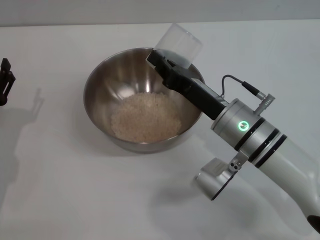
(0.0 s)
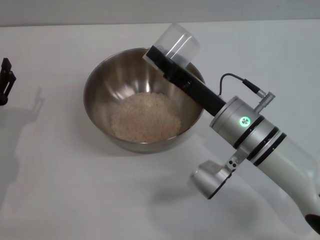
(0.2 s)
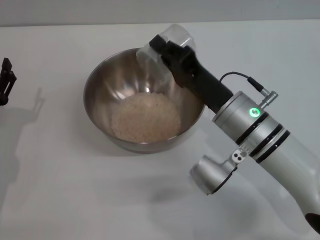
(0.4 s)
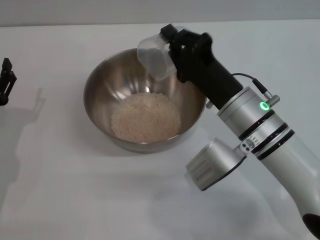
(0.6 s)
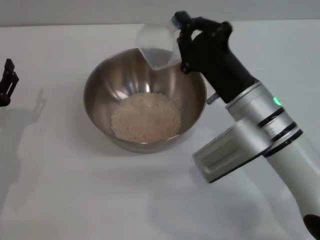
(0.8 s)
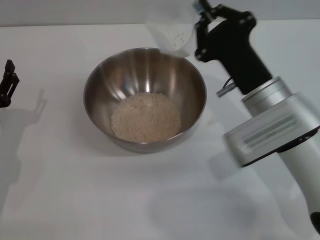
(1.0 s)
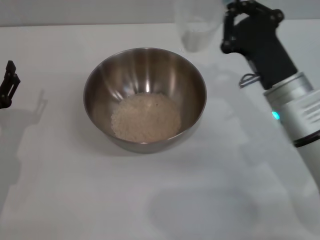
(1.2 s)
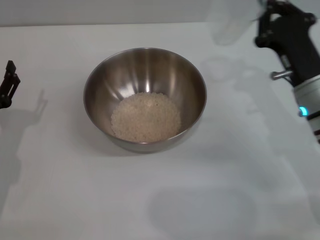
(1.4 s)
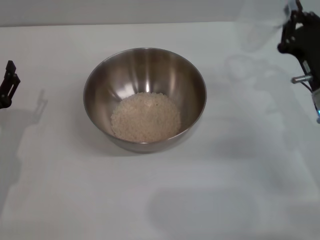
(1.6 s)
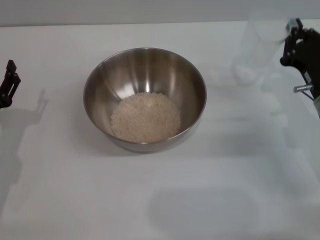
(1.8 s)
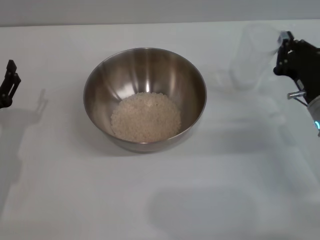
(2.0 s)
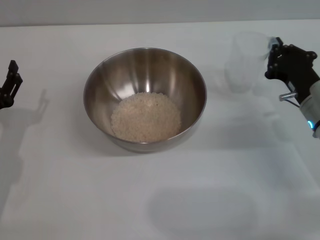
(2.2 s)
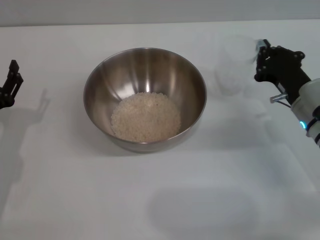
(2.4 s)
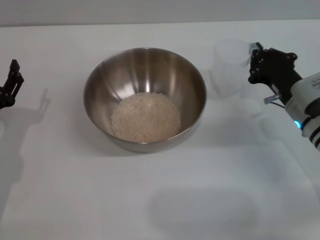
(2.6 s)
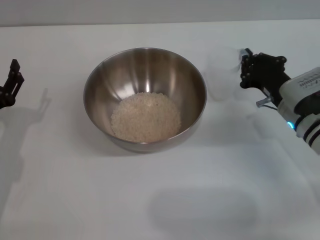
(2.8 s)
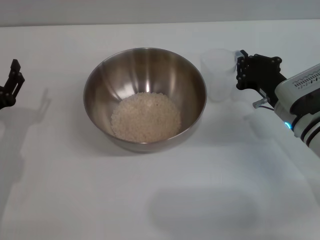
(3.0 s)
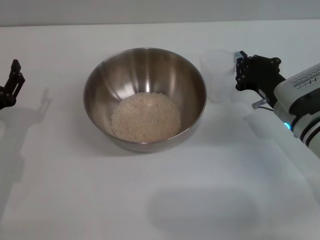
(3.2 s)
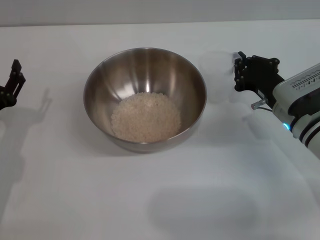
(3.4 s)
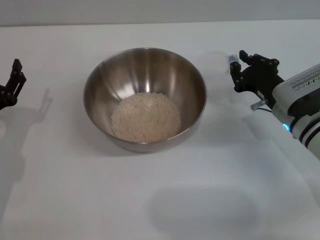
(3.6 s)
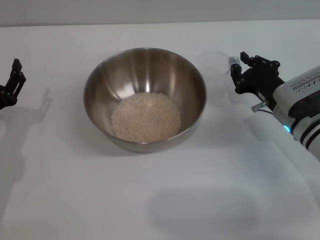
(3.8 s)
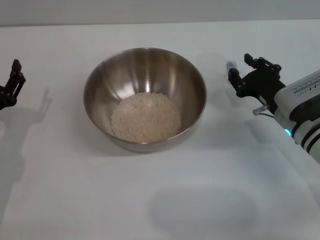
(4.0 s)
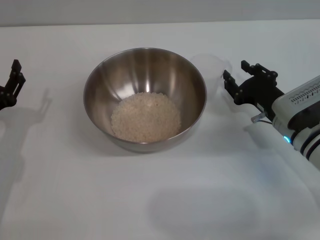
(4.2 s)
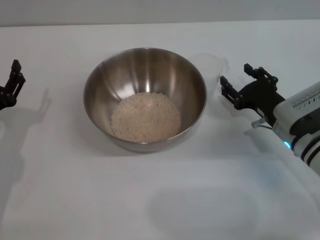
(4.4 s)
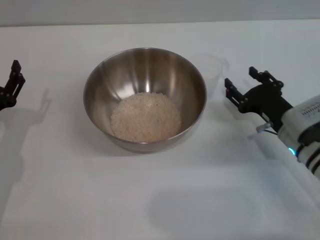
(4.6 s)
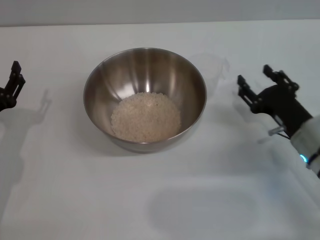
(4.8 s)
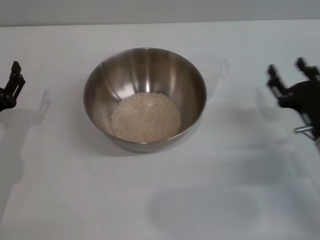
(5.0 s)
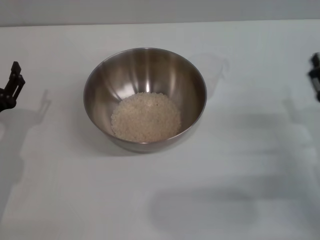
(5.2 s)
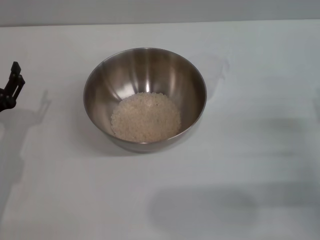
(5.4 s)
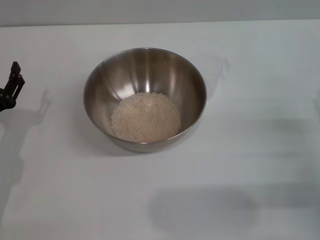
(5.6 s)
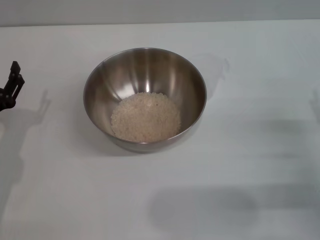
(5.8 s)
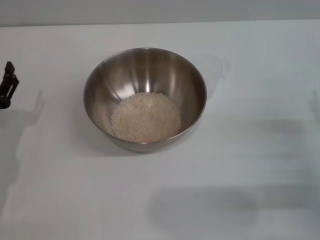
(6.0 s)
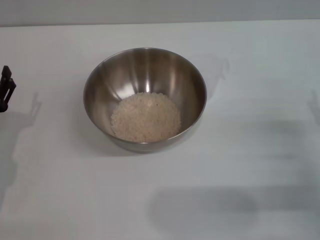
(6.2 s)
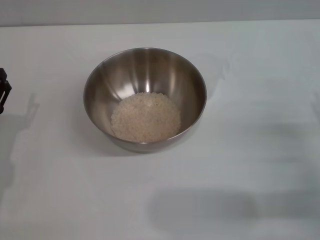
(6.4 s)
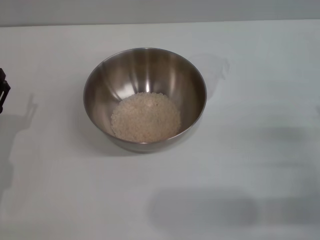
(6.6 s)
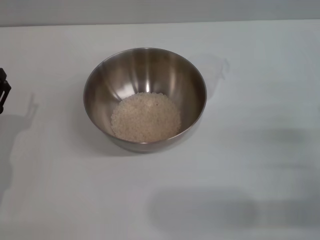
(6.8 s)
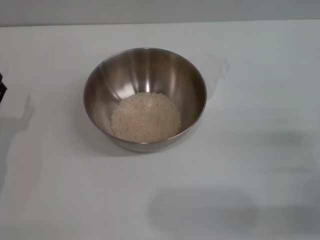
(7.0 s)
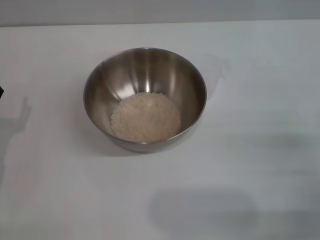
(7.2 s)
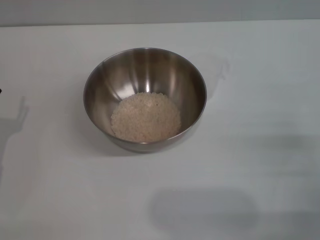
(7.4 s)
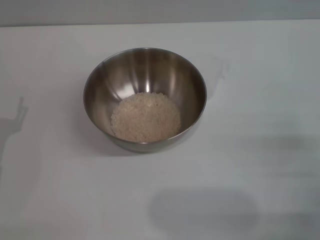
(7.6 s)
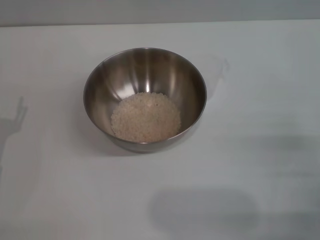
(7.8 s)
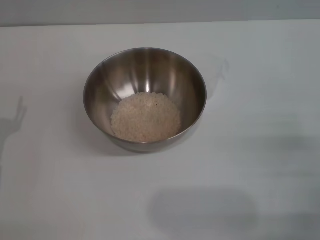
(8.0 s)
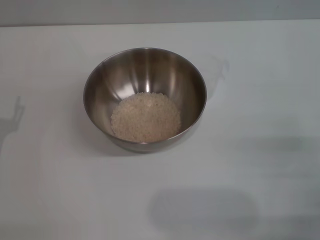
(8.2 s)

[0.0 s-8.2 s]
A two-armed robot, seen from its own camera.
Task of the whole recording: Place the bowl in the middle of the table with one hand and pour the rice from the grain cup into it with the other hand.
Step, 0.4 to 4.6 s: Place the cup on the table with the right gripper.
0.0 to 1.6 s: The right gripper shifts roughly 15 cm to the right.
1.6 to 3.2 s: The right gripper moves some 5 cm.
3.2 to 5.0 s: The right gripper shifts roughly 5 cm backward, and opens up.
5.0 to 6.6 s: The right gripper travels backward and to the right by some 10 cm.
6.6 to 8.2 s: The grippers make only small movements.

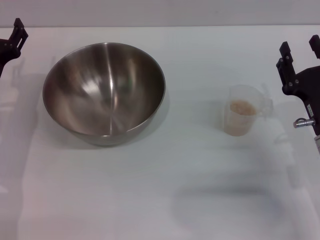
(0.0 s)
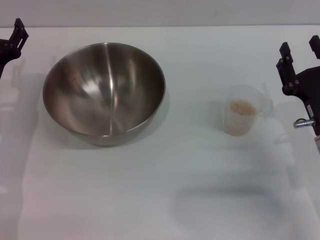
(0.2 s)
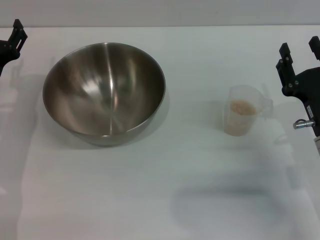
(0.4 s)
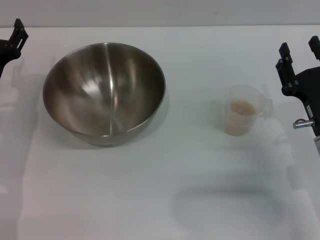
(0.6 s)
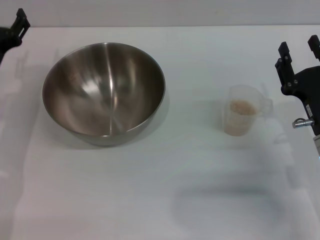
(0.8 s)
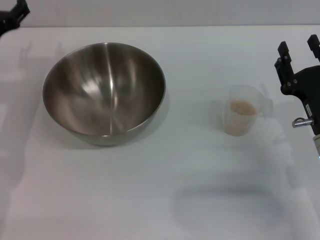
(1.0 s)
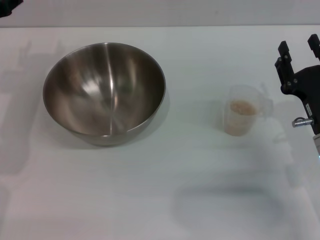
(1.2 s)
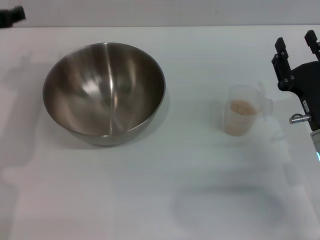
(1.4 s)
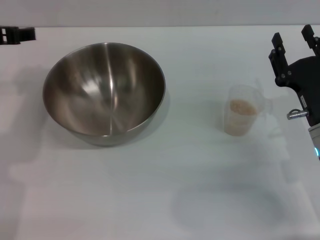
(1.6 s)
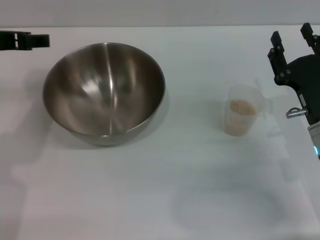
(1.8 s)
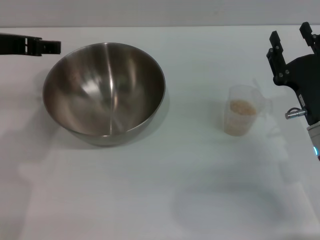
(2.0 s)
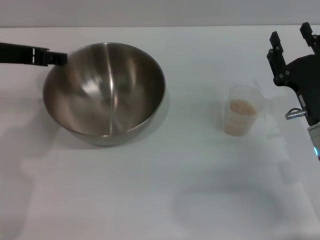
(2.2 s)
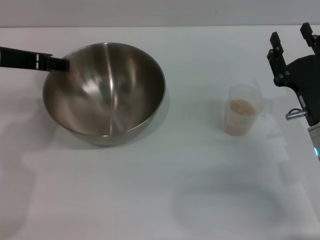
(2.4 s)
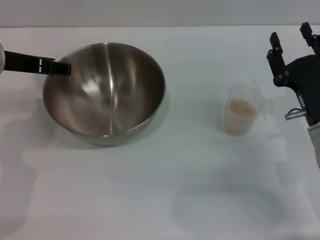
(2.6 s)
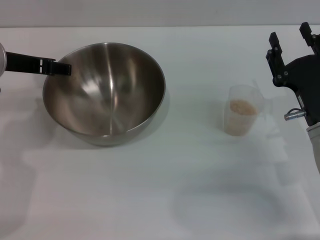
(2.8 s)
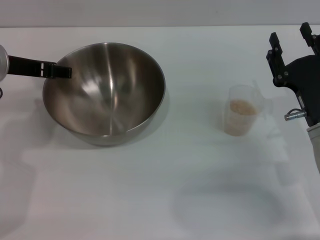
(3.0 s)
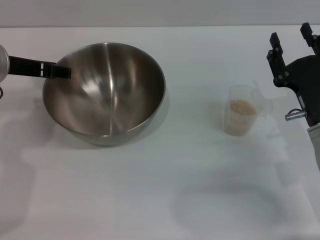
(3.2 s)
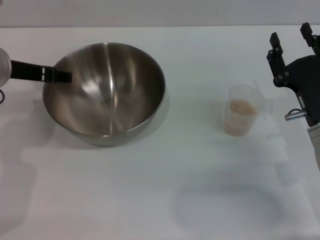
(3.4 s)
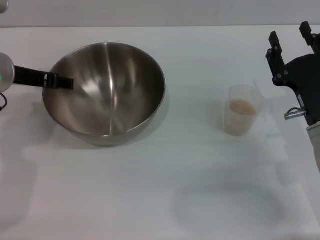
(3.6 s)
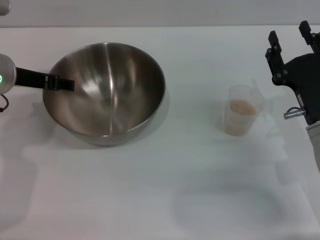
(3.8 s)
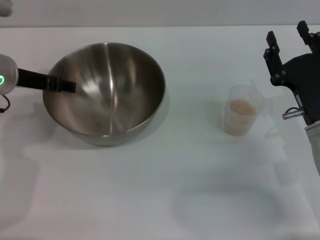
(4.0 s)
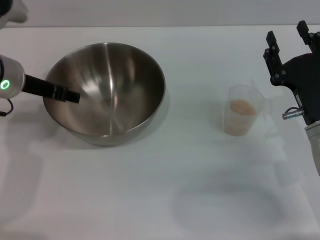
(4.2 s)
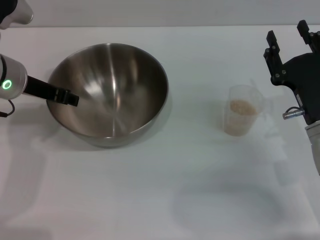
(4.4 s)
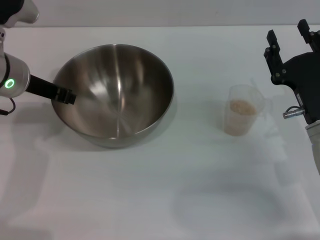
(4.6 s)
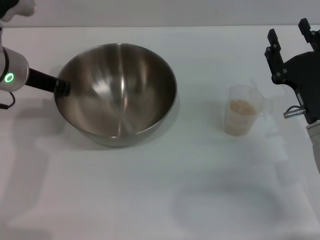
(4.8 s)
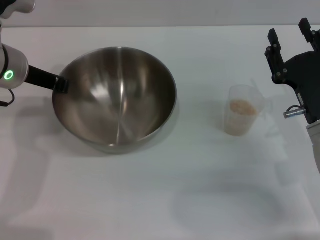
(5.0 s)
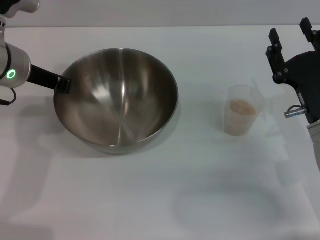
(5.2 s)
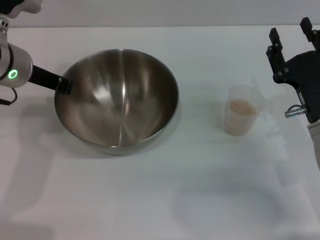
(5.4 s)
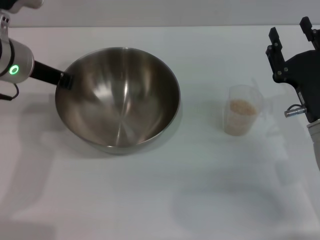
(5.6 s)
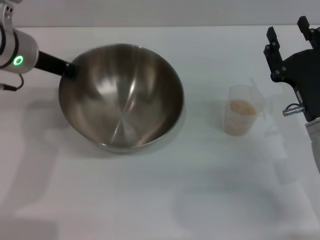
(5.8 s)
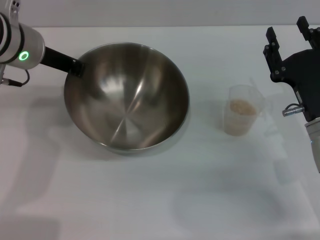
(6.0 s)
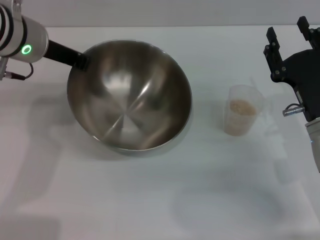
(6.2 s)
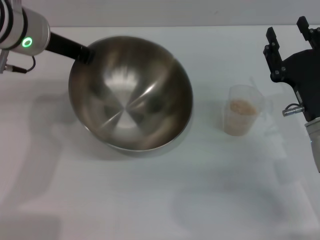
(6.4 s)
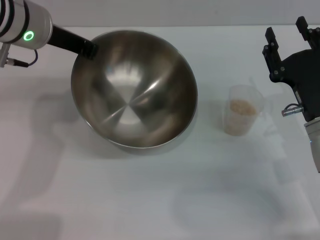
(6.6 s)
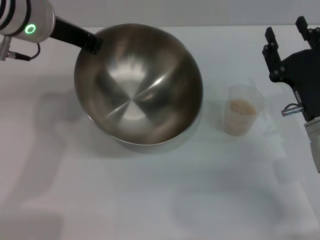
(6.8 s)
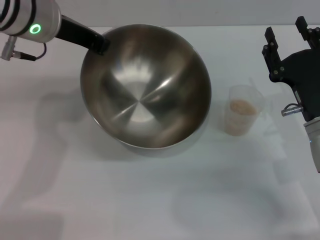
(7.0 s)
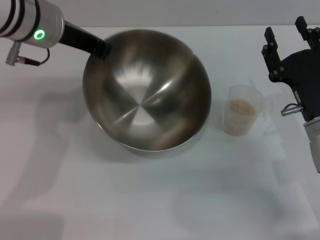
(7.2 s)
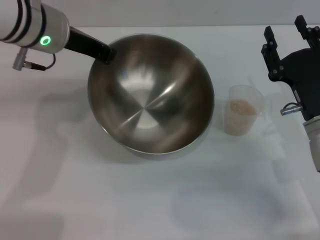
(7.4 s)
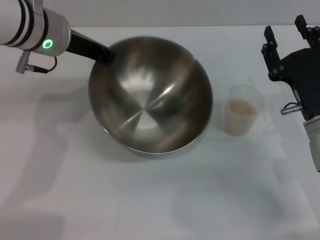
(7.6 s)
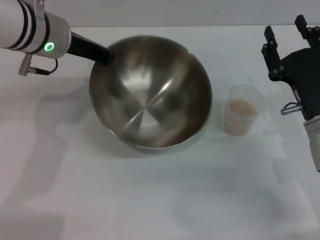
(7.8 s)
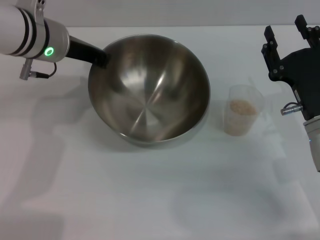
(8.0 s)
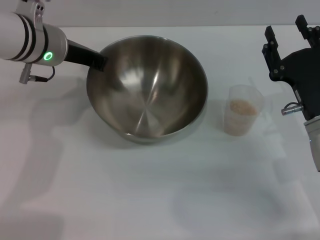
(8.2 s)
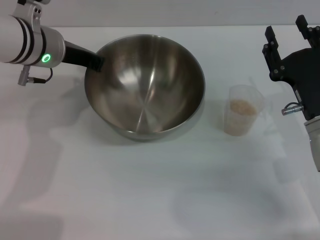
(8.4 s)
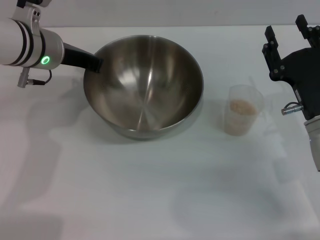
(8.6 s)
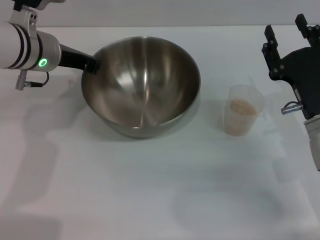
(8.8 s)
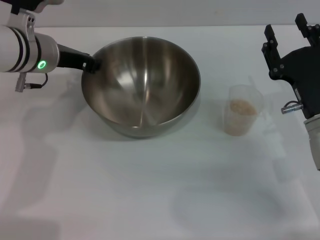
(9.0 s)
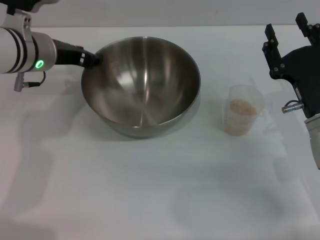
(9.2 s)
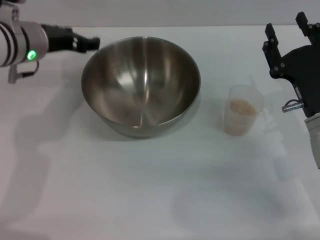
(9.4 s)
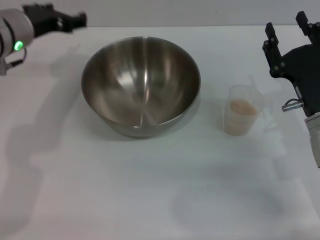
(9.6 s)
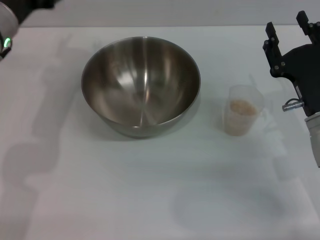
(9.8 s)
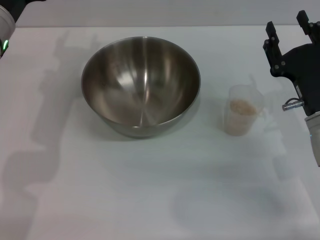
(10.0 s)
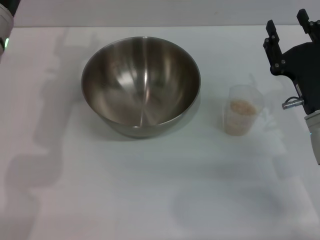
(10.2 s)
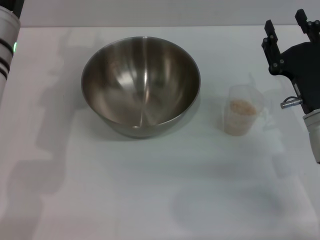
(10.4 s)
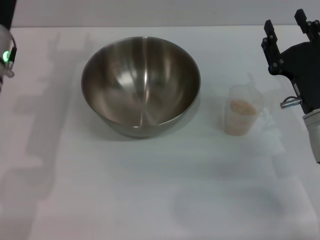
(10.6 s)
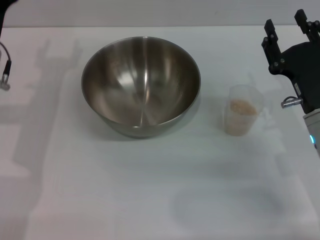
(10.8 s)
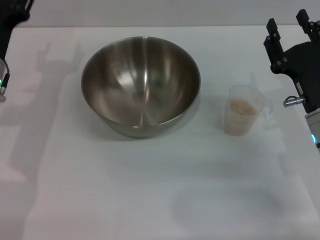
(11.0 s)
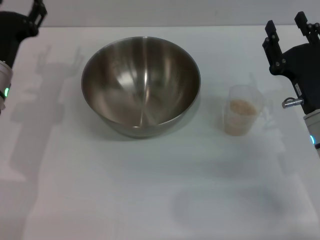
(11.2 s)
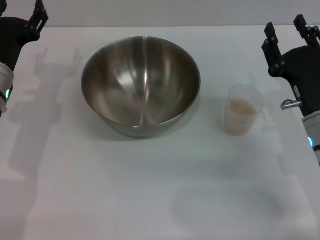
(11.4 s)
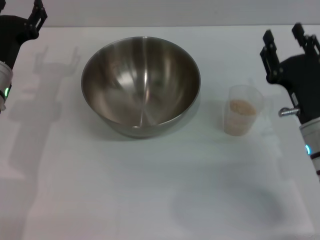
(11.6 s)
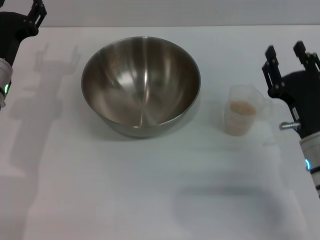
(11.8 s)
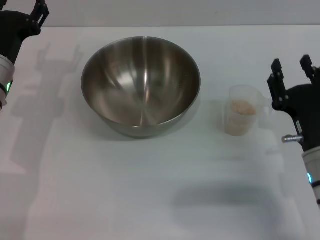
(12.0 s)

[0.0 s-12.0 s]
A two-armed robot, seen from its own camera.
Task of the whole recording: Place the bowl in the middle of the table with one hand and pour the rice from the grain cup into it with the other hand.
Step, 0.0 to 6.2 s: Pick up the bowl with the left gripper.
Step, 6.4 to 9.6 s: Place the bowl in the center of view with the left gripper.
0.0 to 1.6 s: The left gripper travels upward by approximately 15 cm.
1.6 to 3.0 s: The grippers move only a little.
3.0 to 4.4 s: The grippers stay close to where they were, moving slightly.
4.4 to 6.0 s: The left gripper closes up.
7.6 to 9.0 s: The left gripper shifts about 5 cm downward.
9.0 to 10.4 s: The left gripper opens its fingers.
10.4 to 12.0 s: The right gripper changes place by approximately 5 cm. Meanwhile the left gripper heads downward, covering some 5 cm.

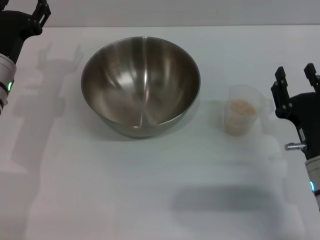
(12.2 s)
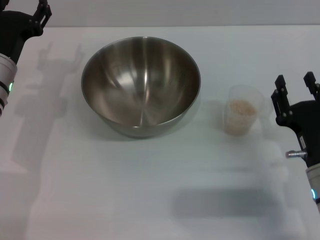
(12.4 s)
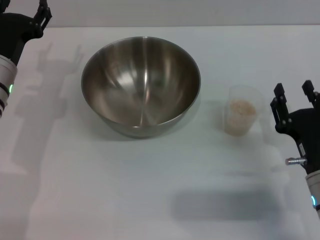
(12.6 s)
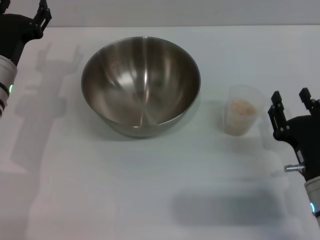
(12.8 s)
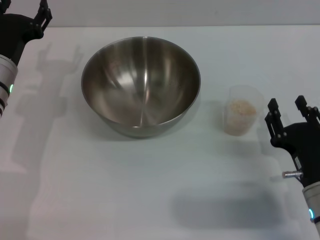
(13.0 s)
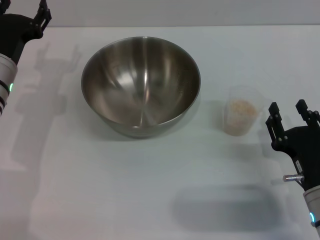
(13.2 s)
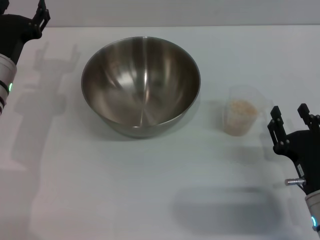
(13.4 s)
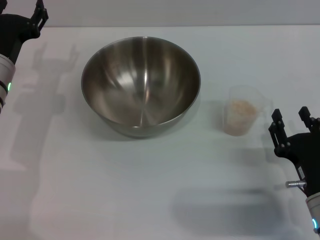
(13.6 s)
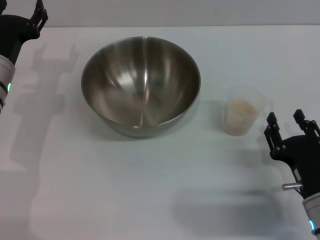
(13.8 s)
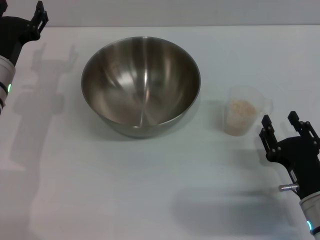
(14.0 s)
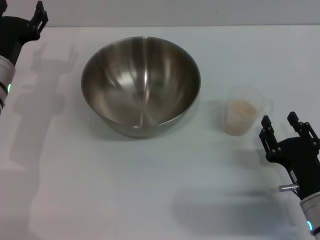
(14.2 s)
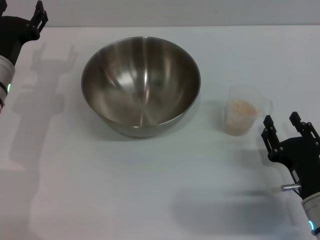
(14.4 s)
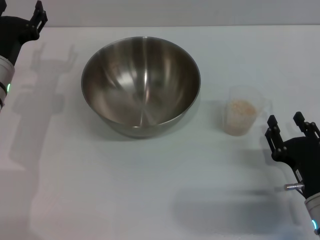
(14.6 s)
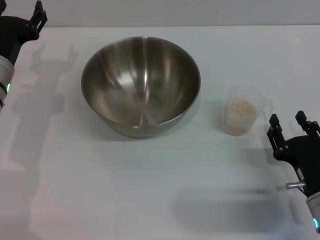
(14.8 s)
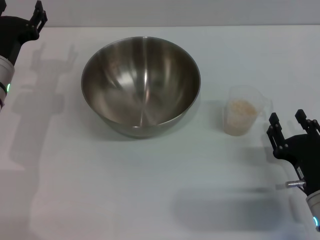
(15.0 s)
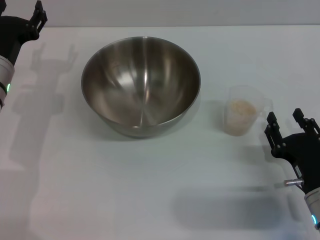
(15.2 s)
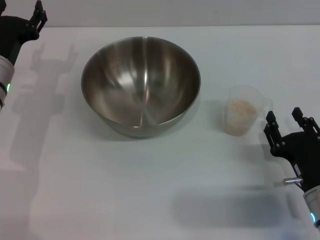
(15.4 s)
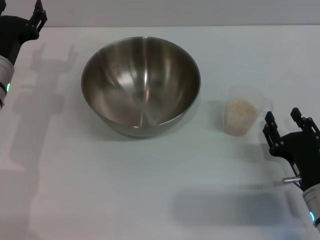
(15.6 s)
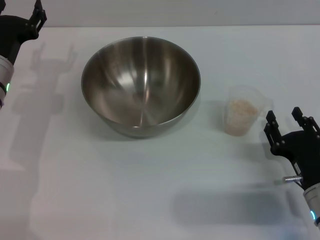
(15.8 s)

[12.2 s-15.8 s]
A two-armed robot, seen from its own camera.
Task of the whole recording: Place the bowl in the middle of the table with one hand and pour the rice from the grain cup into it with the other hand.
12.2 to 14.0 s: The right gripper ends up approximately 5 cm from where it was.
14.0 to 15.8 s: There are only small adjustments of the grippers.
